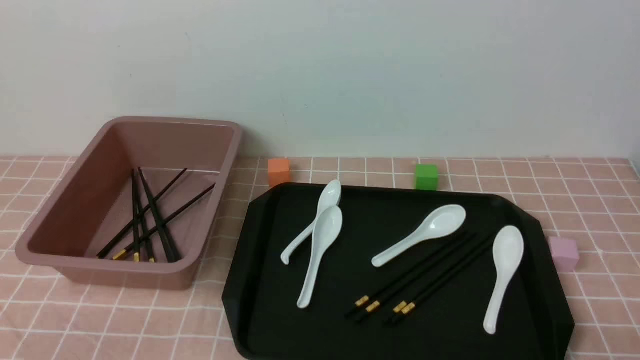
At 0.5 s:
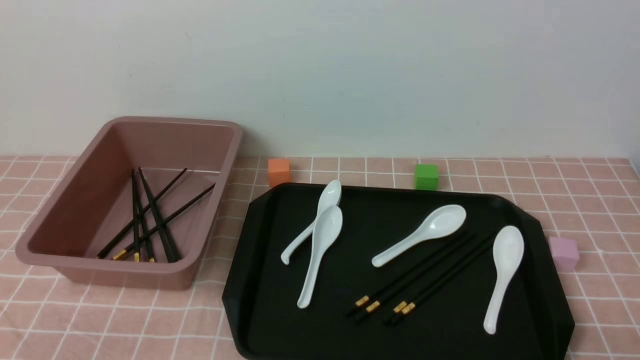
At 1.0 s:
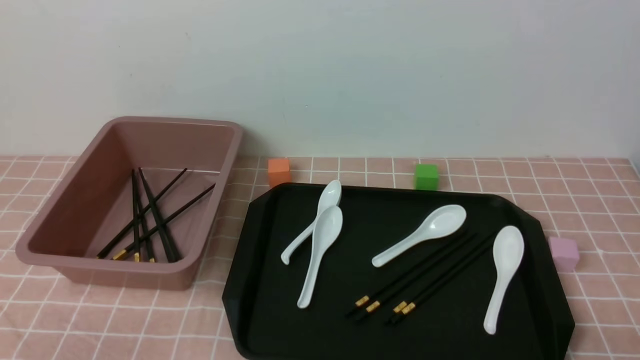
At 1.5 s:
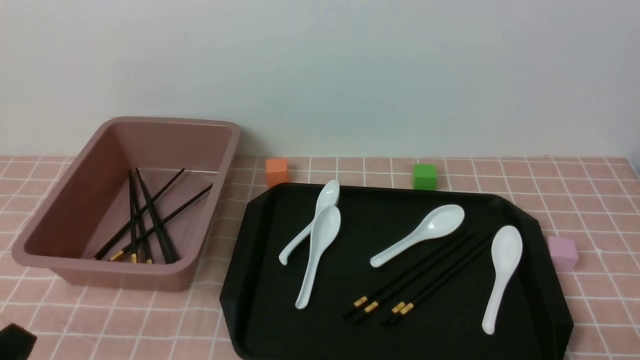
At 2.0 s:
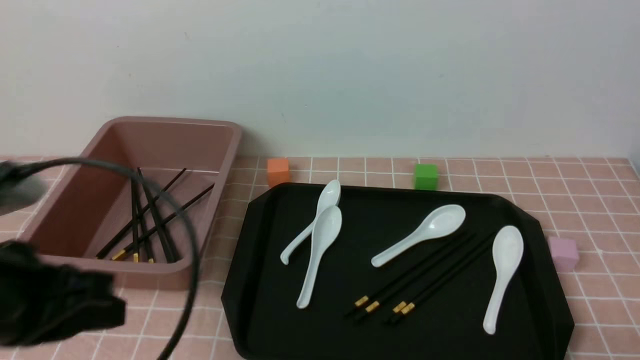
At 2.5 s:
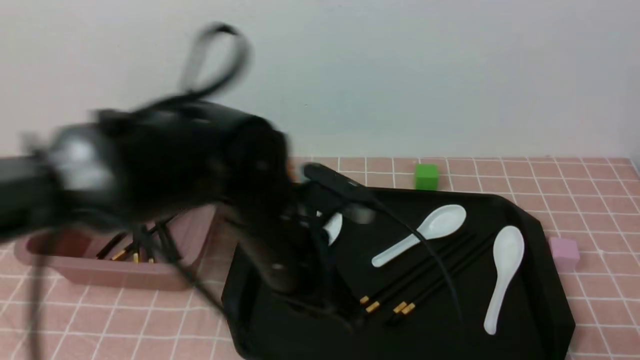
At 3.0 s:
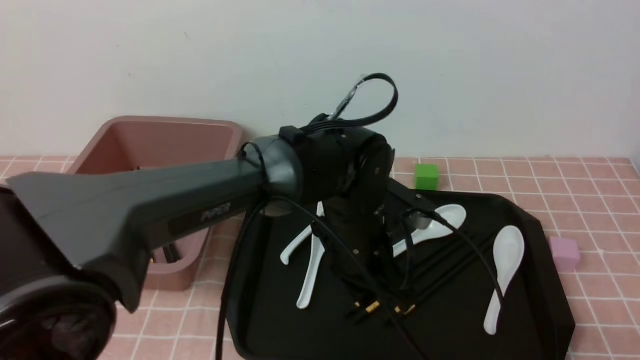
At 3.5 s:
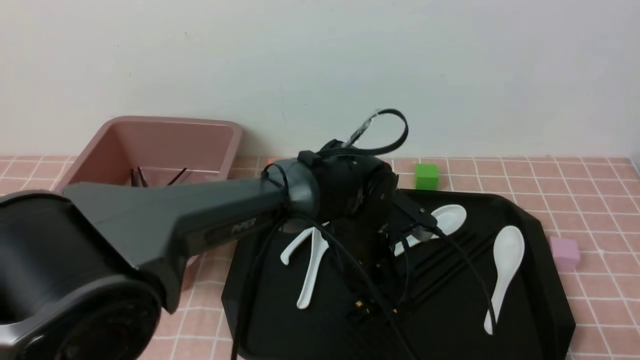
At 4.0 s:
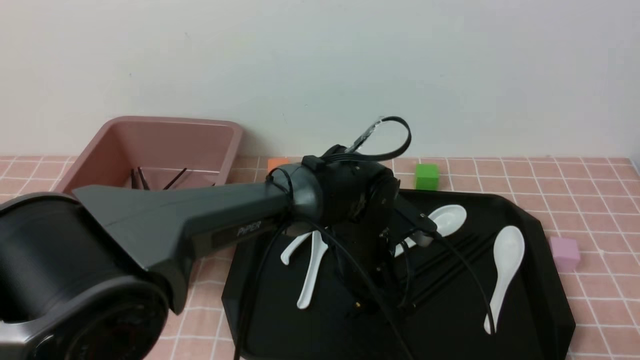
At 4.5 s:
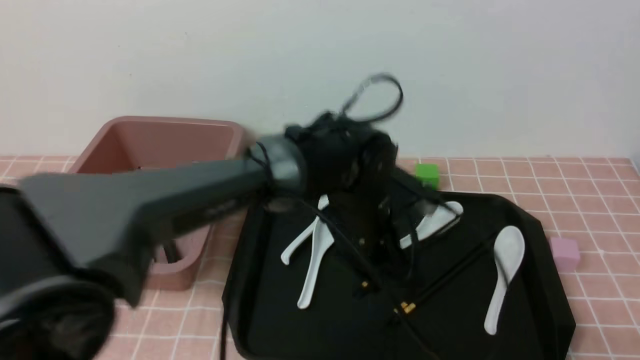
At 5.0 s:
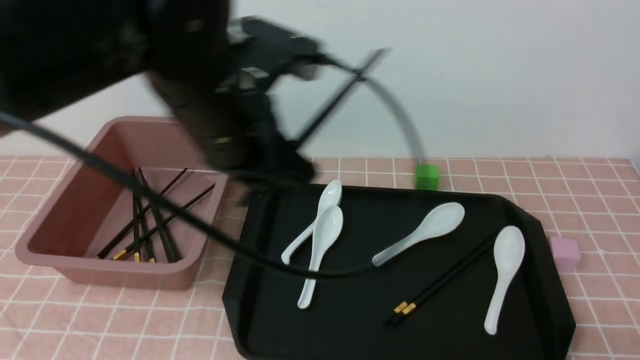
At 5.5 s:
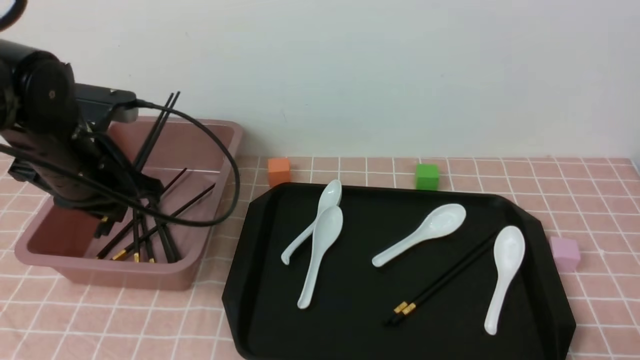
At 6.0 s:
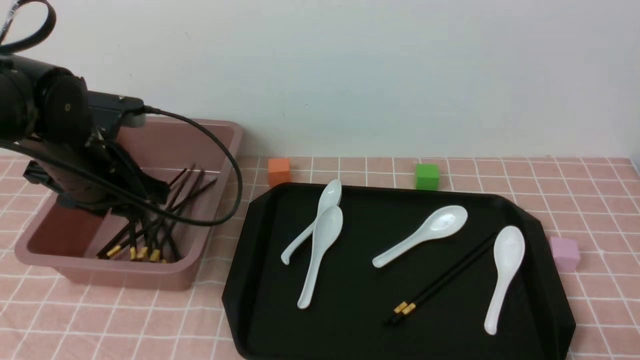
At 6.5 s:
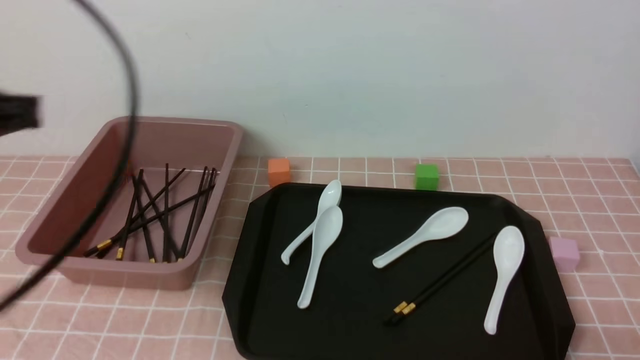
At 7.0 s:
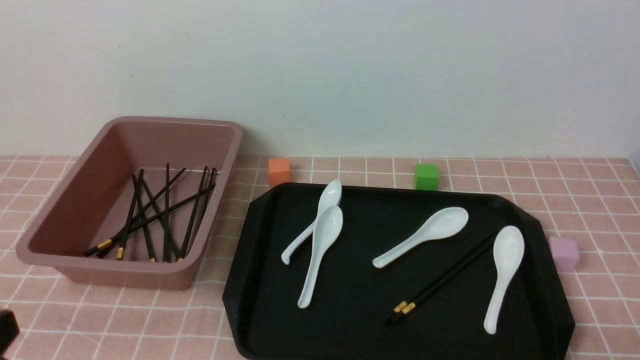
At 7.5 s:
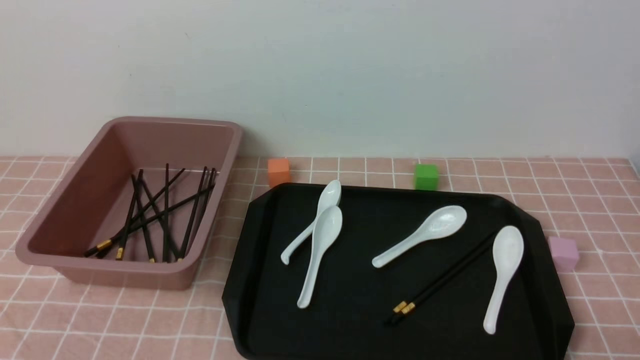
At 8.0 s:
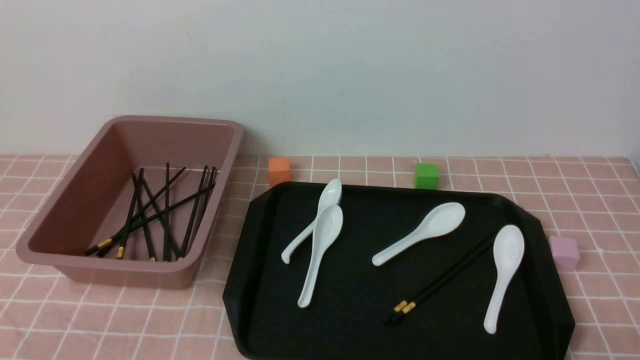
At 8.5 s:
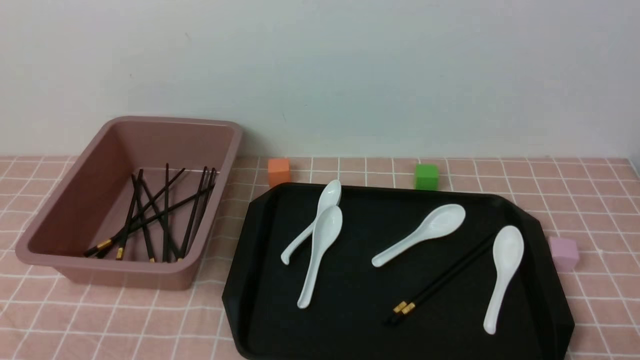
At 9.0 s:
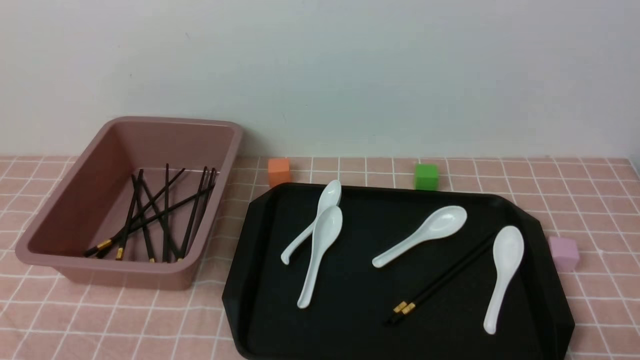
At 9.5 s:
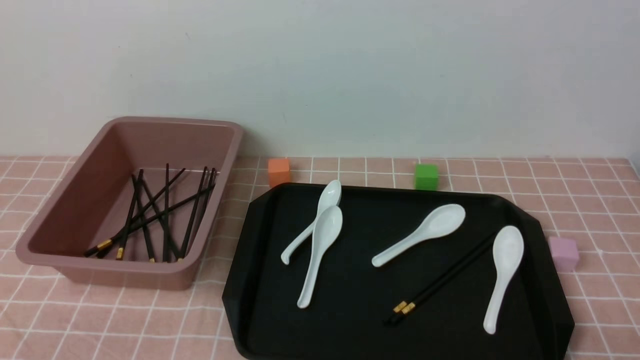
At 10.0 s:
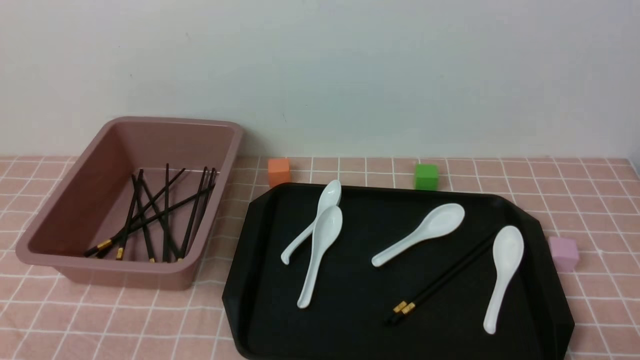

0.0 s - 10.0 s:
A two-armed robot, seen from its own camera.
Step, 0.0 s - 4.5 s: use the left arm to grab a pair of chopsticks.
Step, 5.0 s - 6.0 s: use the left arm to put the chopsticks into the lunch box.
2.0 s - 4.0 s: The left gripper moves to the right, forward and downward, about 40 cm, and opens.
4.0 s - 6.0 s: The left gripper shifts roughly 30 cm to the left.
6.0 s - 8.0 s: The left gripper shifts some 30 cm backward, and closes up.

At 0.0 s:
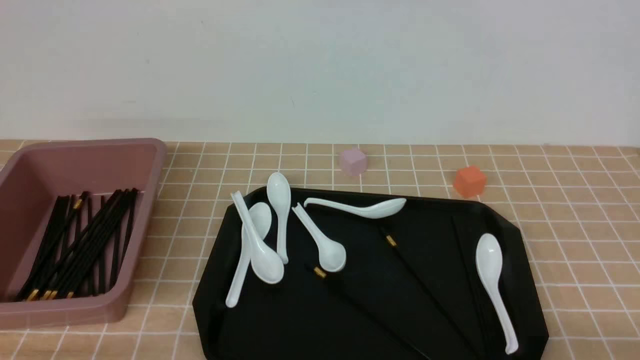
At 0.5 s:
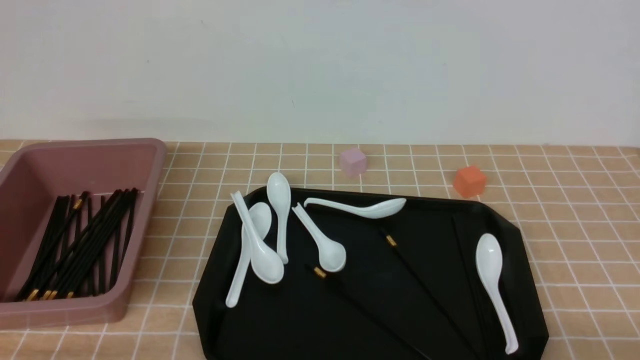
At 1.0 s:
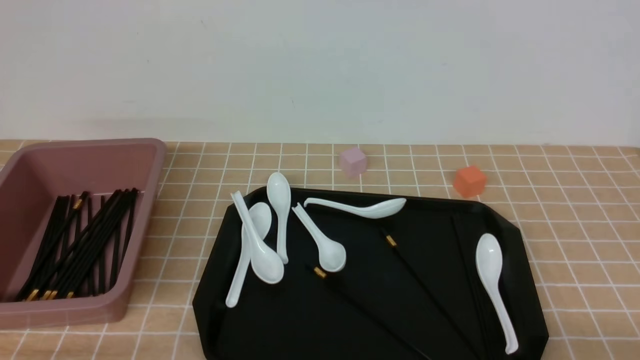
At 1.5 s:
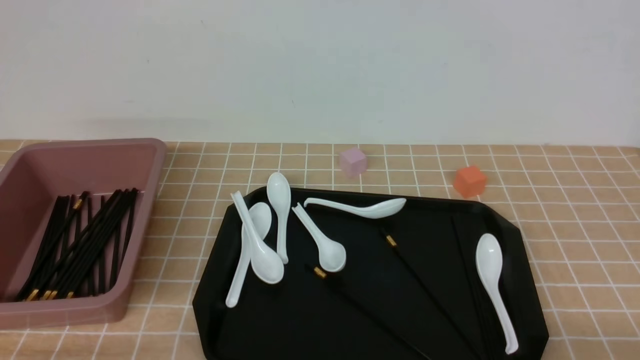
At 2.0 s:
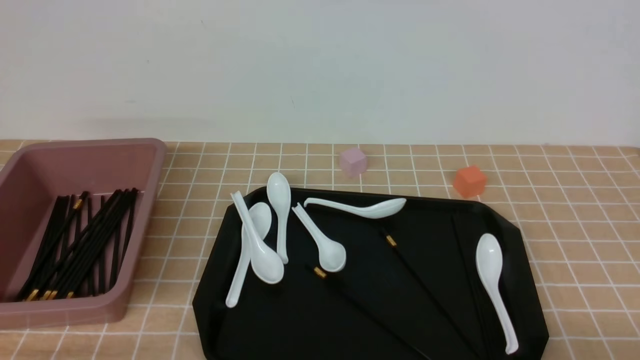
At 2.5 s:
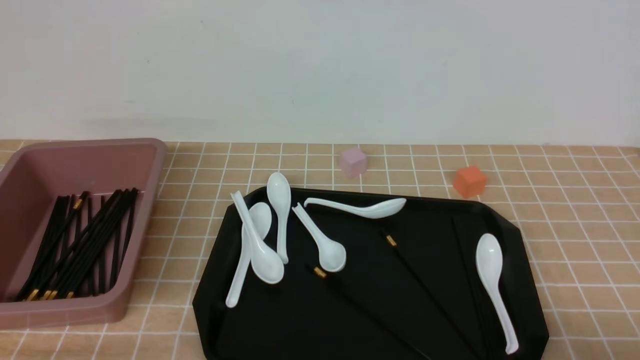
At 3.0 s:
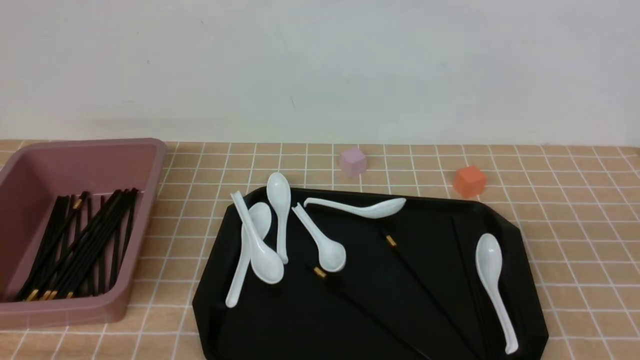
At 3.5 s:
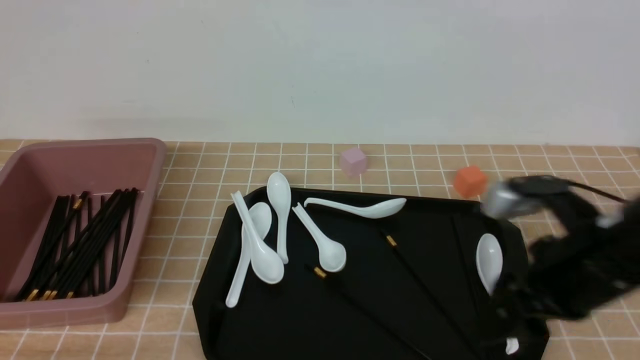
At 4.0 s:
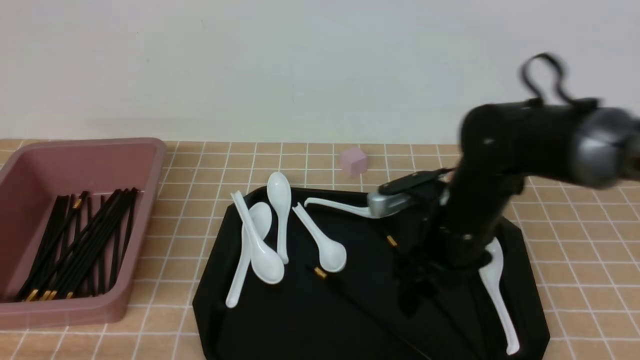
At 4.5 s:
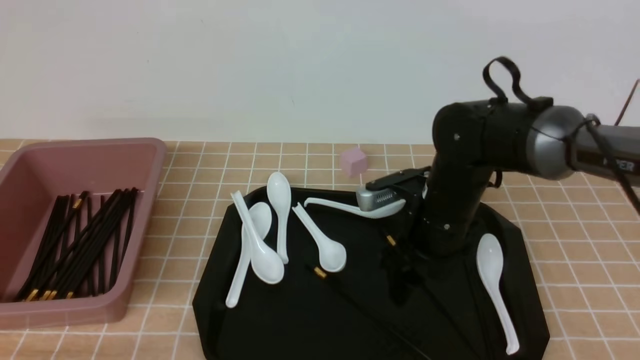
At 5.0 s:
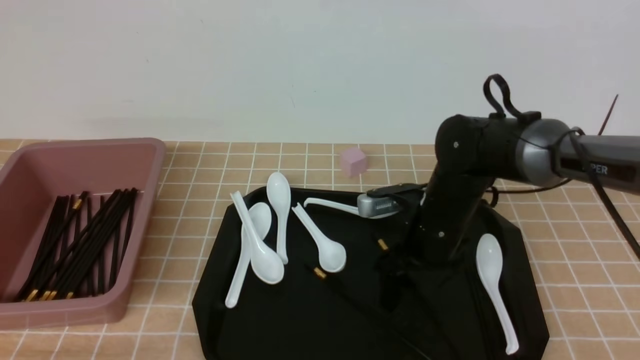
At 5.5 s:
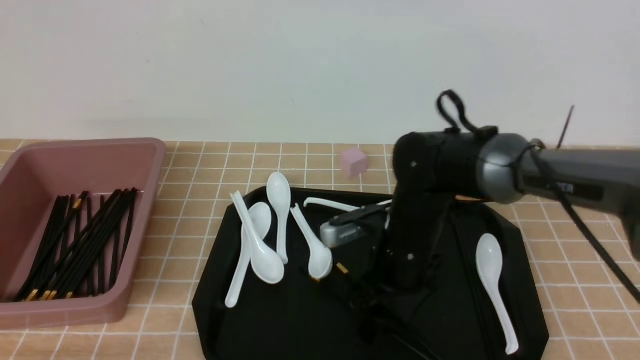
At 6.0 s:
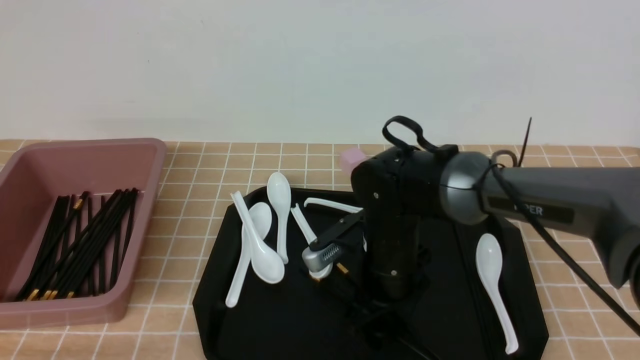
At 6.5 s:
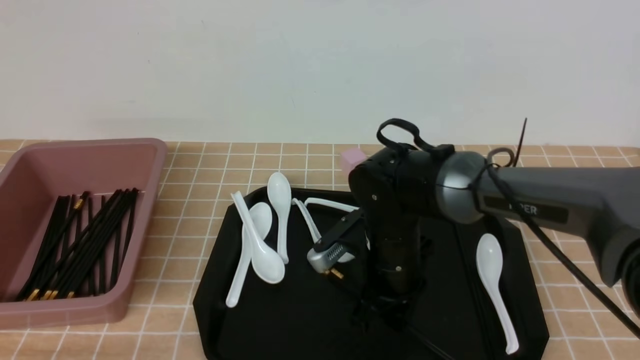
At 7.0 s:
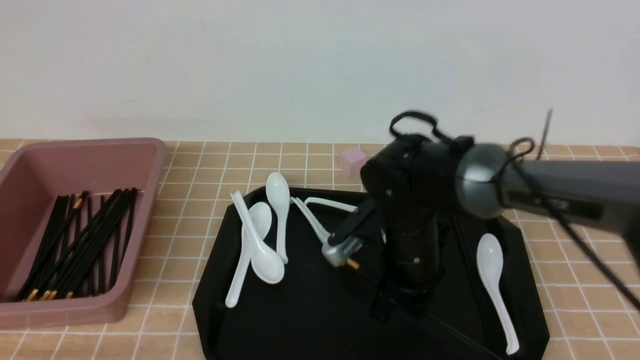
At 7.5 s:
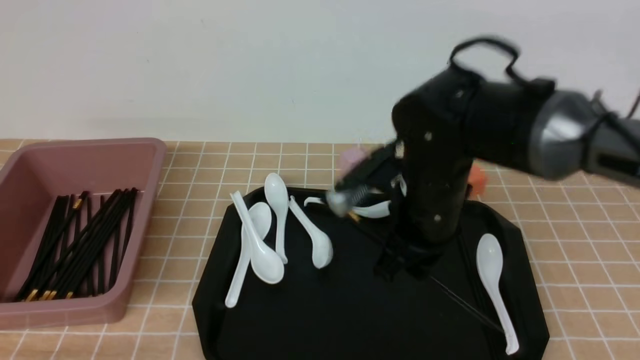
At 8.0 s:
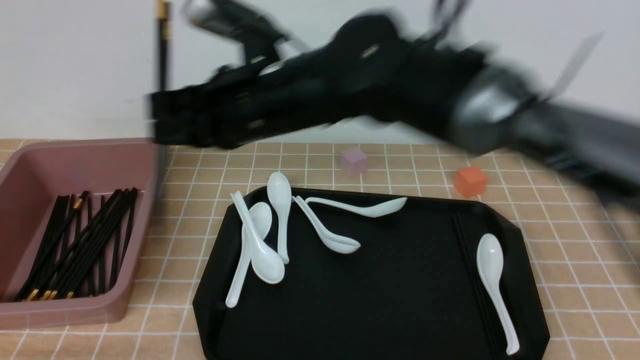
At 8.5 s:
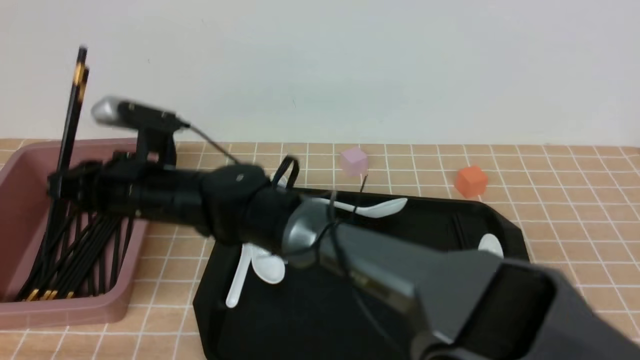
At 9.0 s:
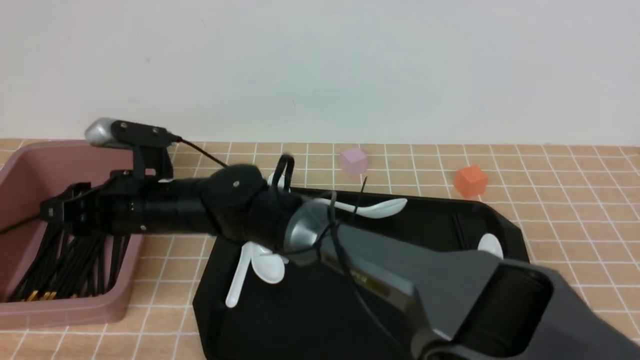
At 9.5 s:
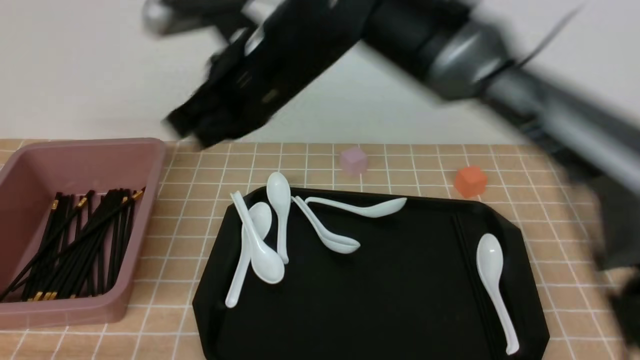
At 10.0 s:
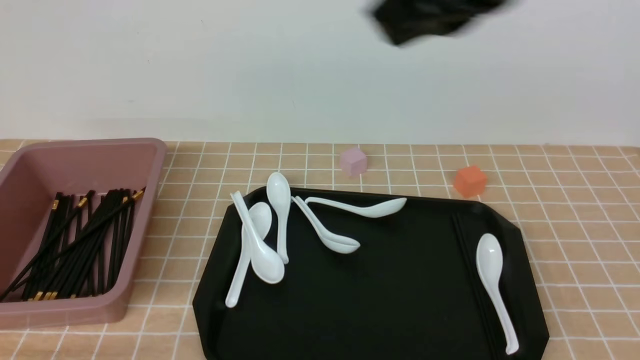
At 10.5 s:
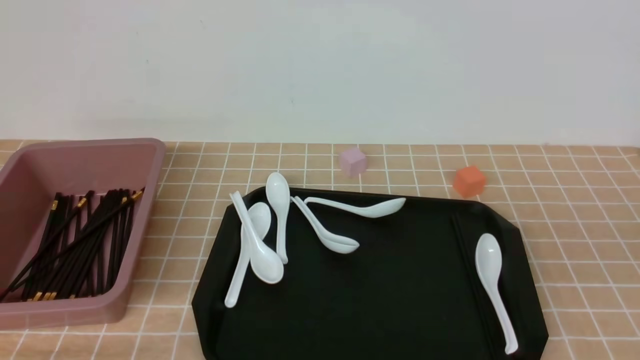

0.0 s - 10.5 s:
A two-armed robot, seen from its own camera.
Step, 0.0 s - 7.0 s: use the right arm to grab a pair of chopsticks.
Step, 7.5 s - 9.0 s: use the right arm to put the chopsticks into the lunch box.
2.0 s - 4.0 s: The right gripper moves forward and to the left, some 35 cm, and opens.
4.0 s - 6.5 s: The right gripper shifts some 10 cm downward and to the left, and closes.
6.5 s - 8.5 s: The right gripper moves to the left, approximately 25 cm.
8.5 s - 10.5 s: The right gripper moves to the right, backward and upward, some 50 cm.
